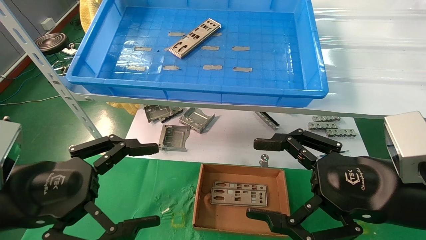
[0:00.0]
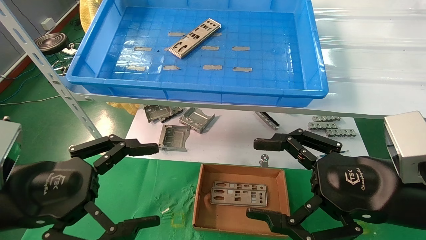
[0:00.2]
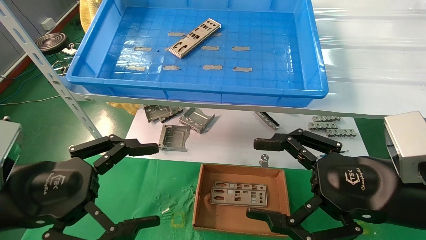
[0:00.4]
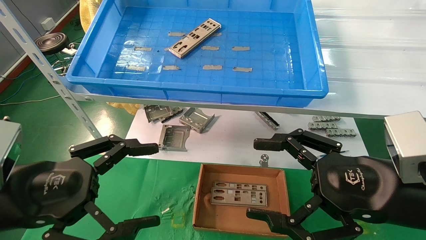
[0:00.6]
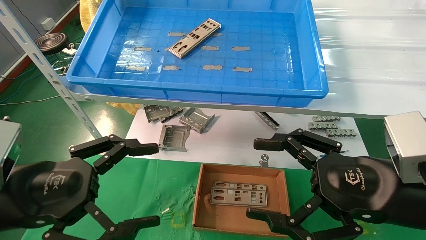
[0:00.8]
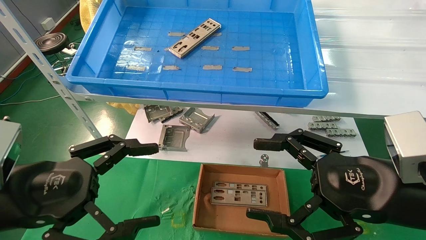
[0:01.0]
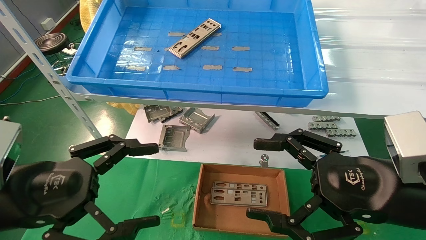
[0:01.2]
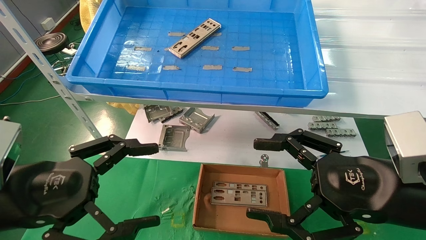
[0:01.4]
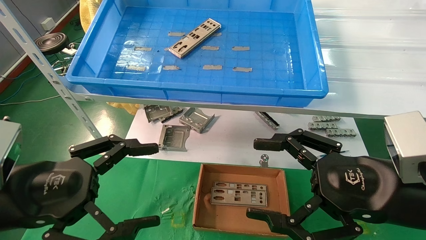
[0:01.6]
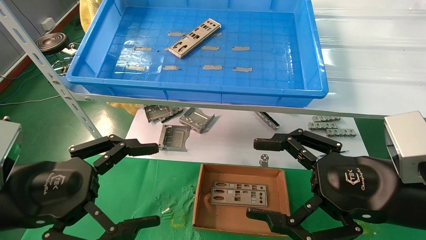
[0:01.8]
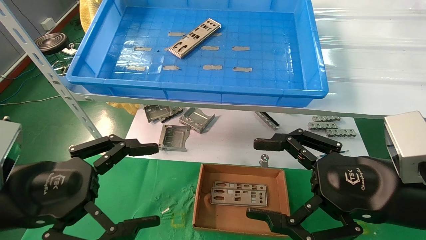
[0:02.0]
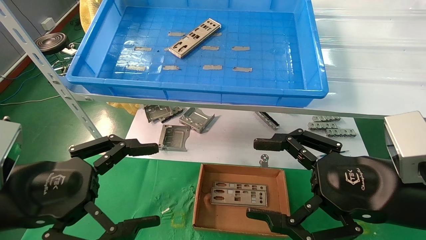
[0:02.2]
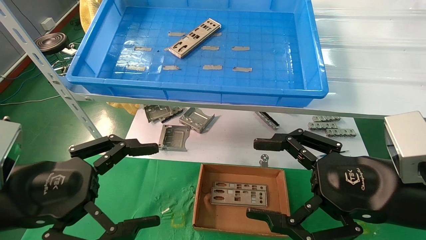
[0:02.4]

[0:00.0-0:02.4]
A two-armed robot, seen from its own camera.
Task of the whole recording: pick up the parts on the tray and put them in the cardboard box.
0:00.0 to 0:02.4: Both grippers stay put.
